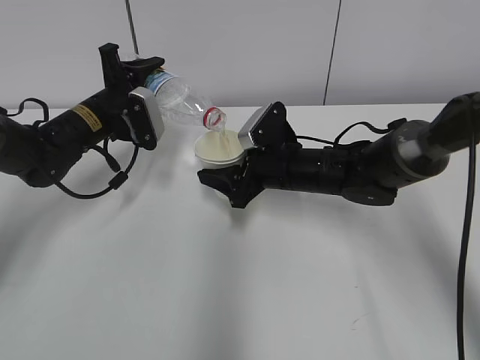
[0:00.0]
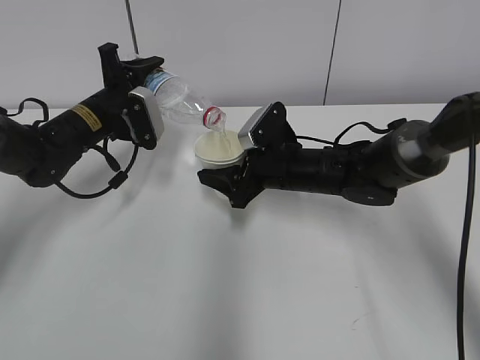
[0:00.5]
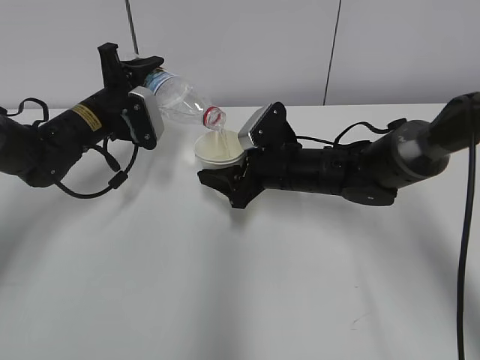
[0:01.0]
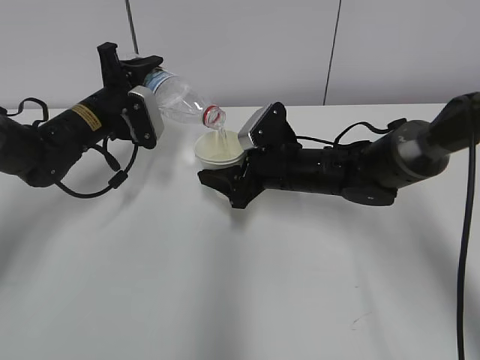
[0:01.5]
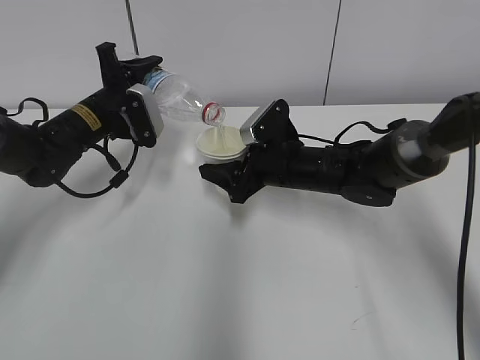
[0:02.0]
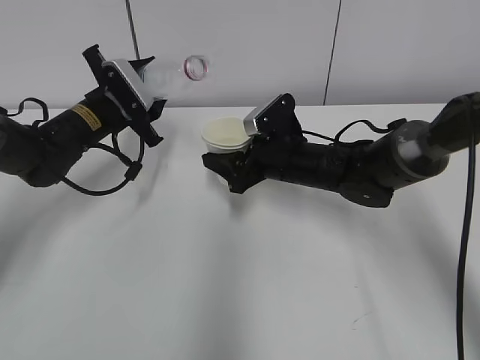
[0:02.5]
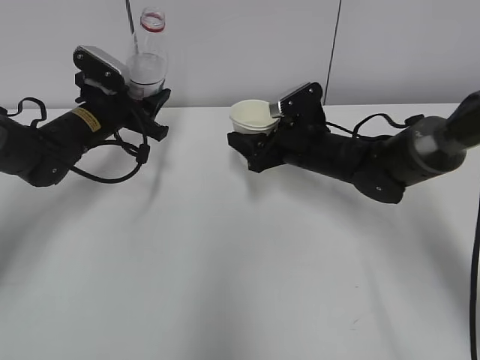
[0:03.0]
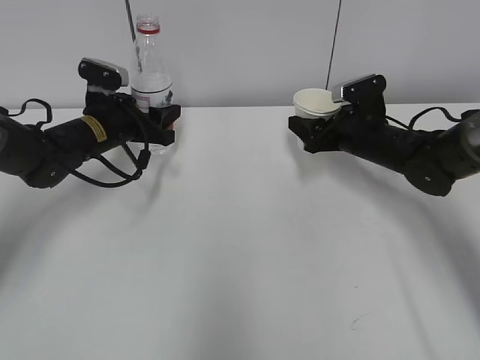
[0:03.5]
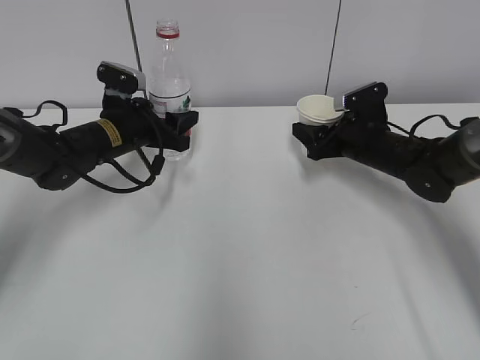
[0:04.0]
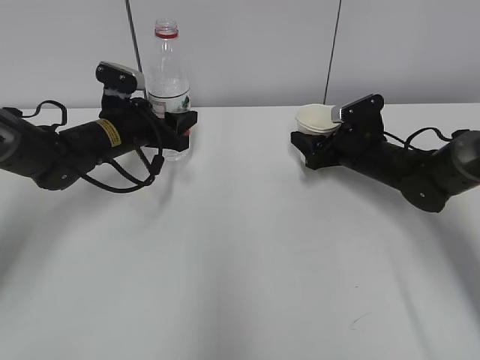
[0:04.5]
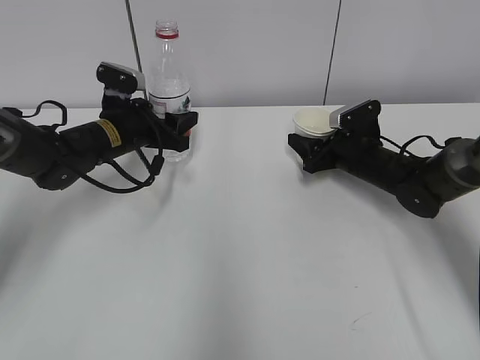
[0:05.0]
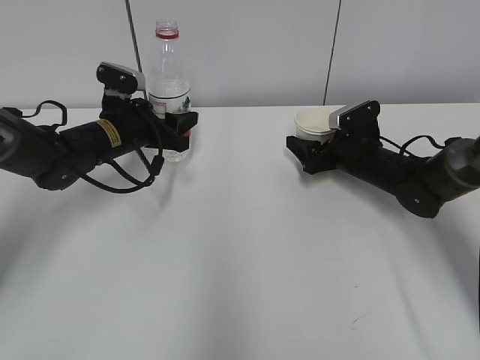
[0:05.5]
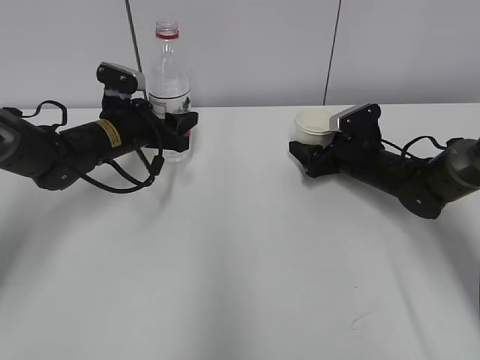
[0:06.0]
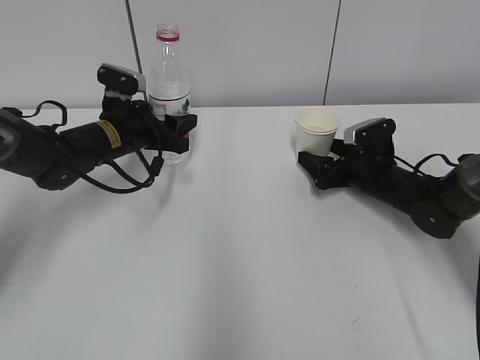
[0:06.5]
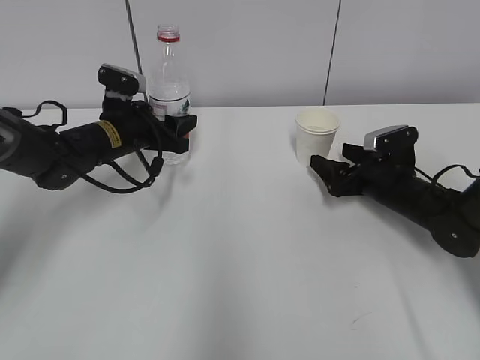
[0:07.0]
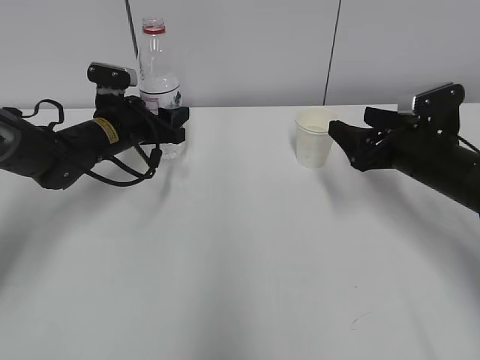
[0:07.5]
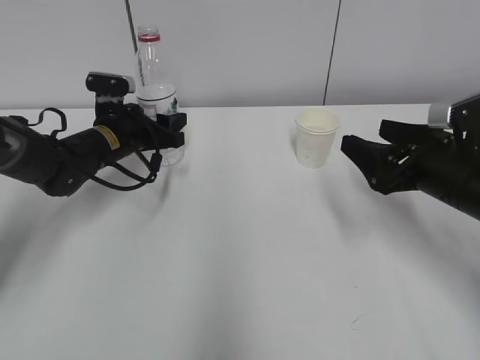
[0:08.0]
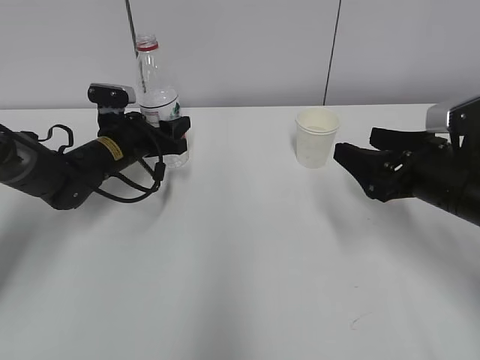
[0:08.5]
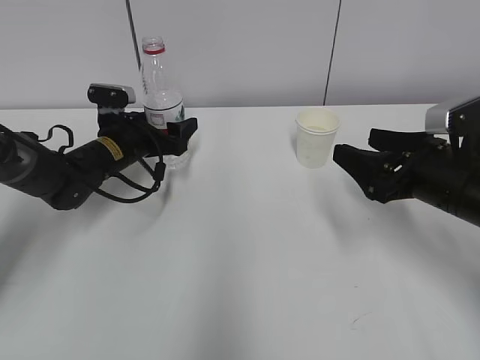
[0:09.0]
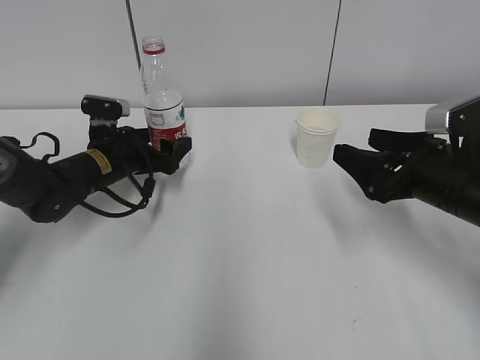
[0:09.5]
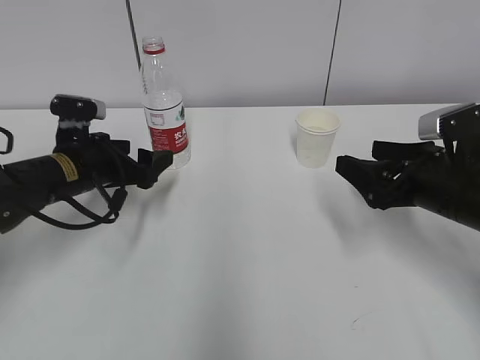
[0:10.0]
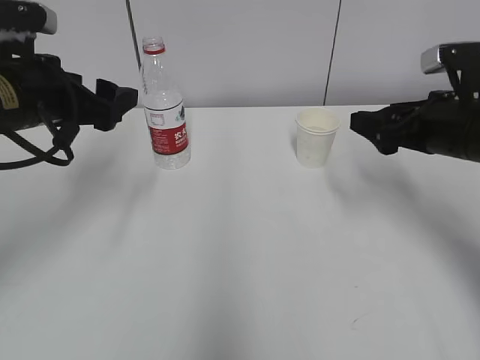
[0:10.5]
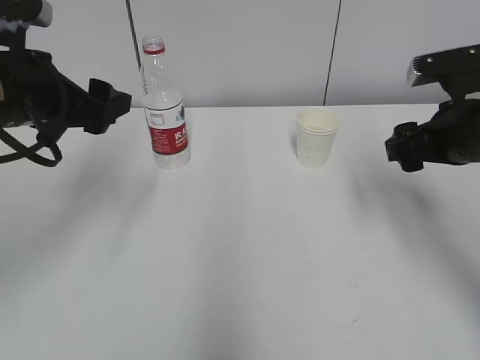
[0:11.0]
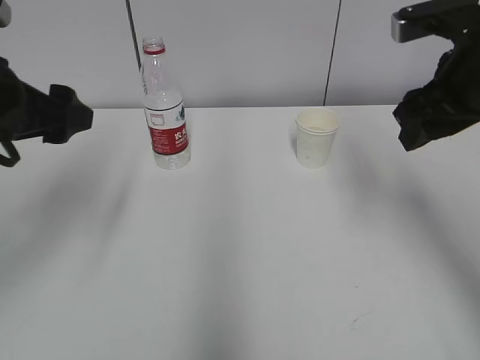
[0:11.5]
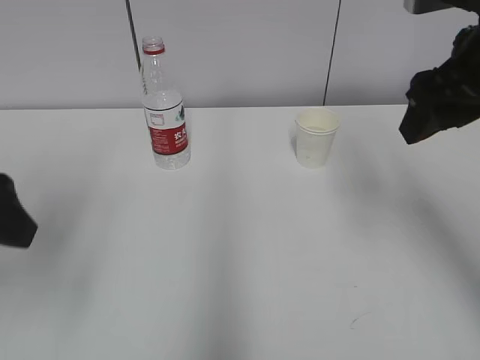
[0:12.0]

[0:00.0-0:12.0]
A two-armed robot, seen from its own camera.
Step, 0:01.5 to 0:03.5: Place the water bottle with the left hand.
0:00.0 to 0:02.0: The two grippers keep their place.
0:02.0 to 0:04.0: The right gripper is displaced to the right by some 15 cm.
0:04.0 to 0:06.0: The right gripper opens.
0:06.0 to 0:08.0: The right gripper travels backward and upward by roughly 20 cm.
0:08.0 to 0:10.0: The left gripper moves backward, about 10 cm, and opens.
0:10.0 to 0:12.0: The left gripper goes some 25 cm backward and upward; the right gripper is displaced upward by about 20 cm, and closes its fingers.

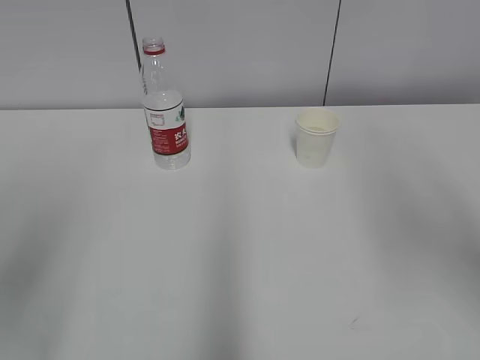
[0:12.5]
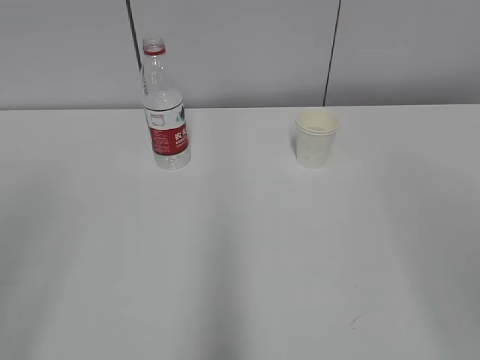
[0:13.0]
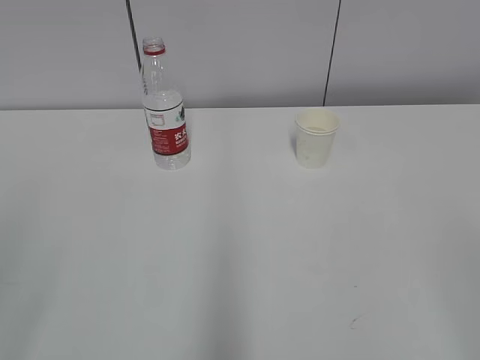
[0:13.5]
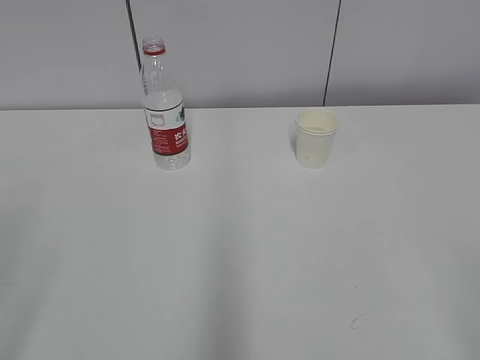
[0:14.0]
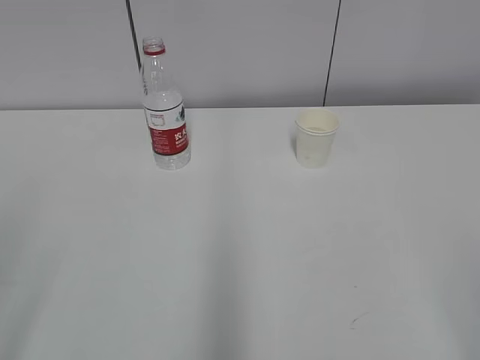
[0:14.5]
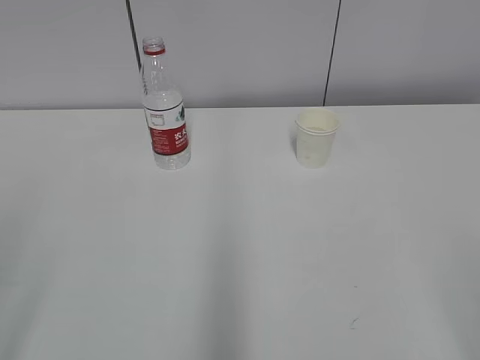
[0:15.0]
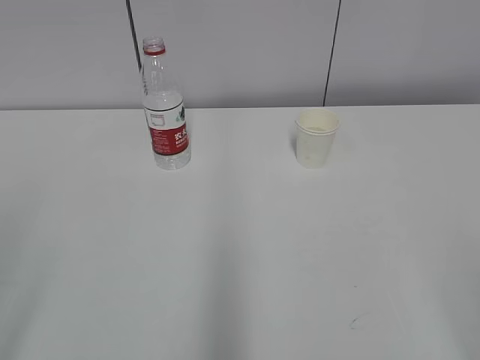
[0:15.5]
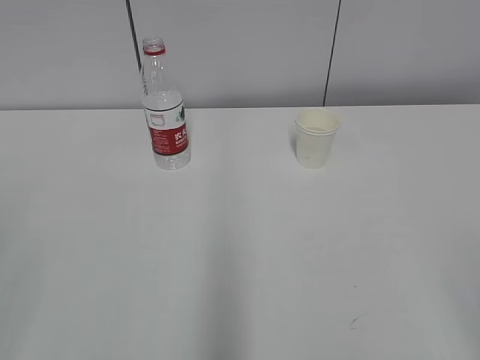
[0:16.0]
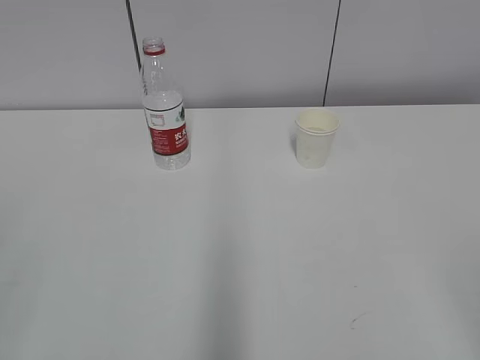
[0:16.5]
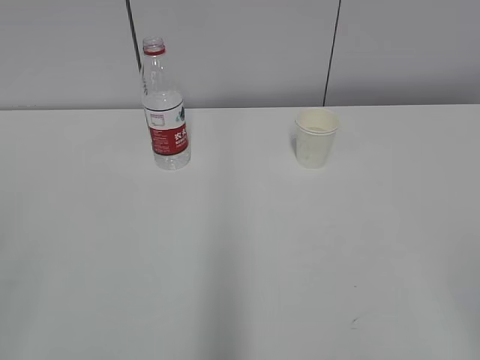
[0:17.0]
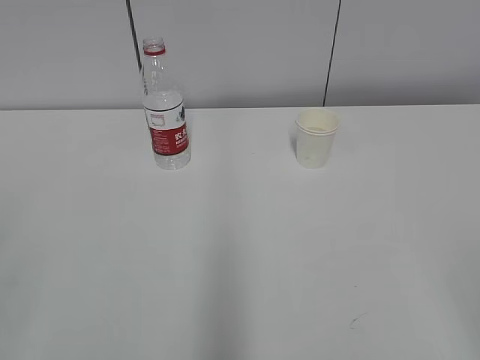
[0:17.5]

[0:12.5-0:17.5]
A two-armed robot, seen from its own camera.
0:12.5 to 0:15.0: The left gripper heads backward, covering roughly 10 cm. Meanwhile the right gripper moves backward and downward, some 25 cm, and opens its fingers.

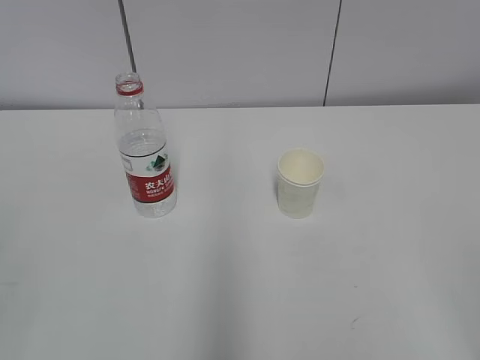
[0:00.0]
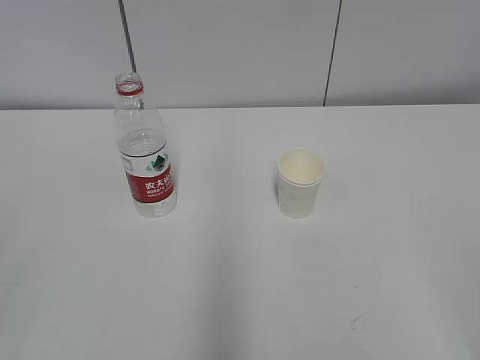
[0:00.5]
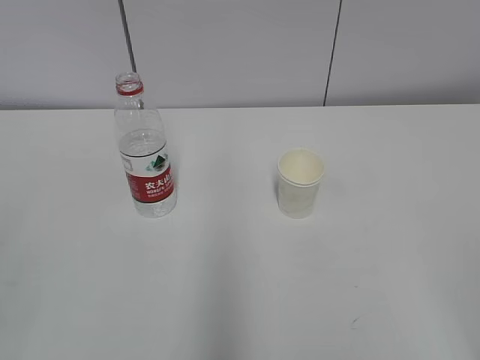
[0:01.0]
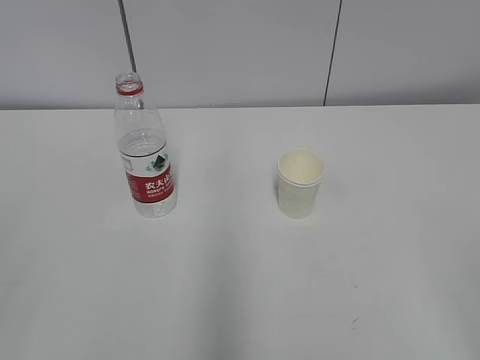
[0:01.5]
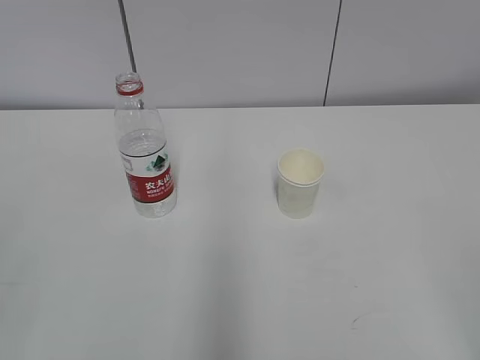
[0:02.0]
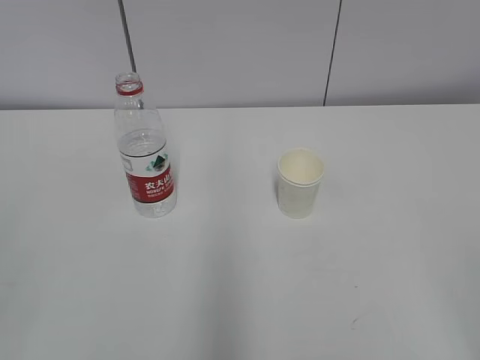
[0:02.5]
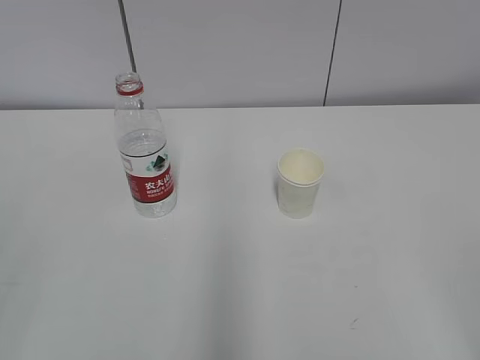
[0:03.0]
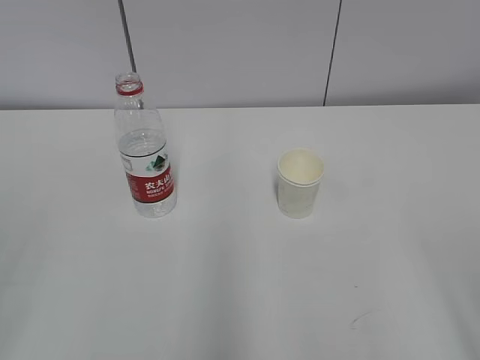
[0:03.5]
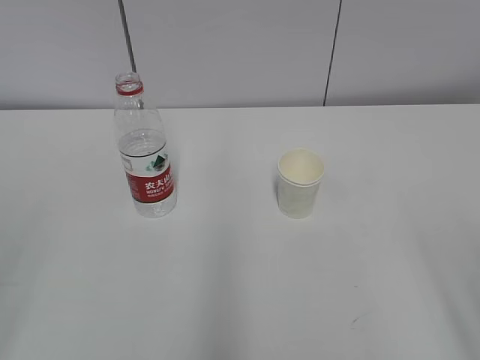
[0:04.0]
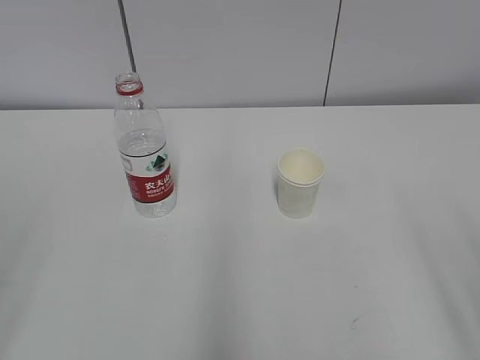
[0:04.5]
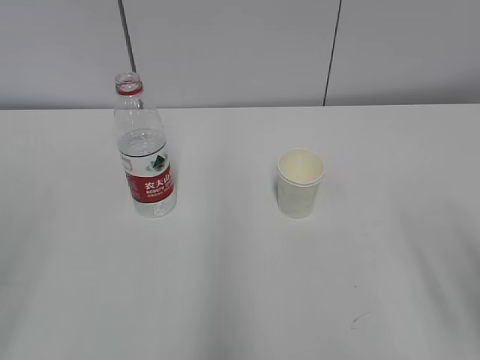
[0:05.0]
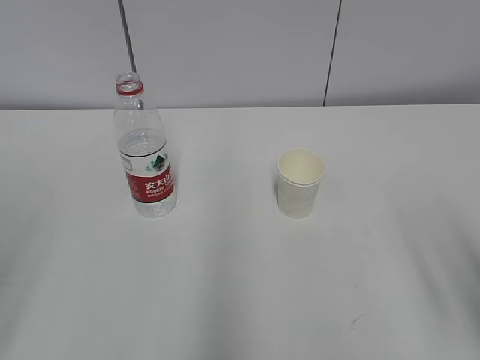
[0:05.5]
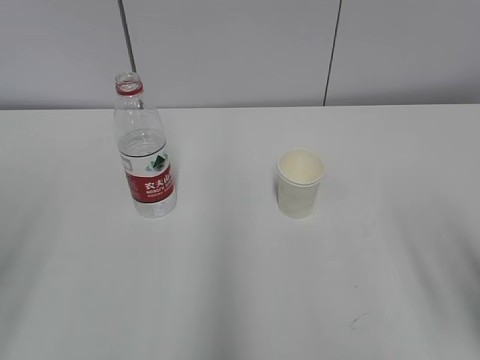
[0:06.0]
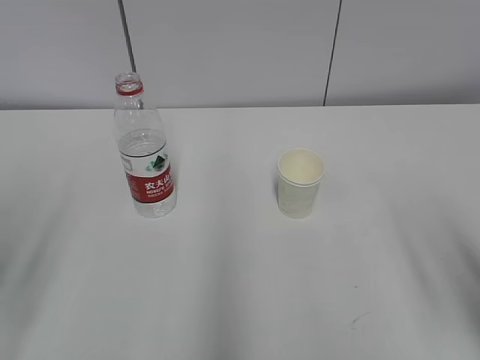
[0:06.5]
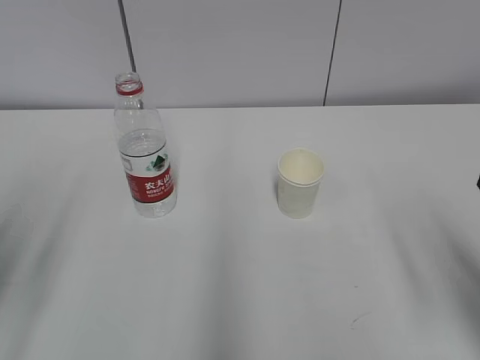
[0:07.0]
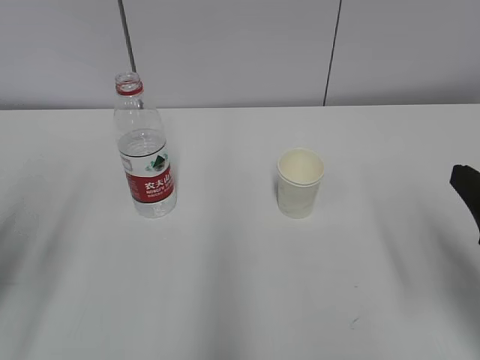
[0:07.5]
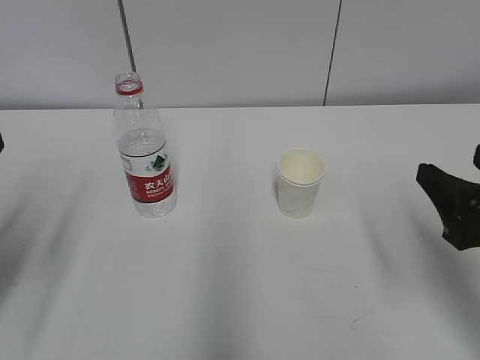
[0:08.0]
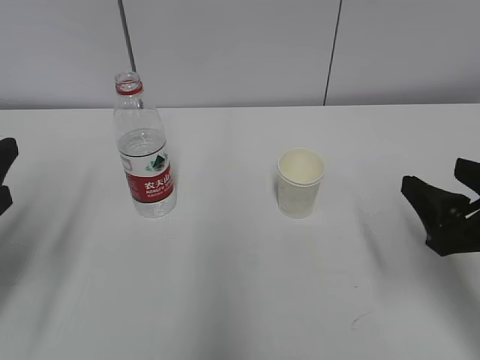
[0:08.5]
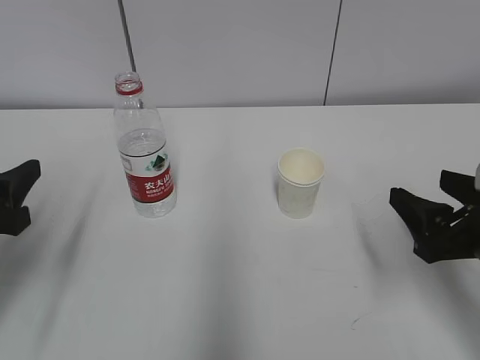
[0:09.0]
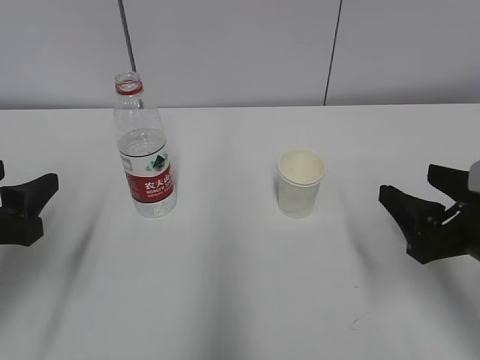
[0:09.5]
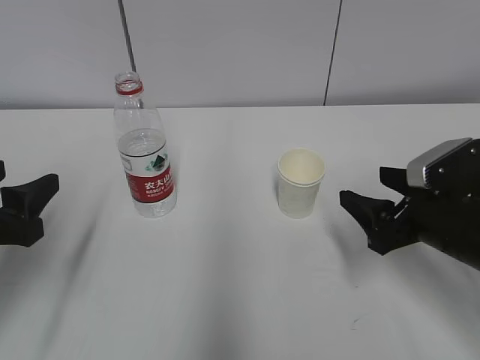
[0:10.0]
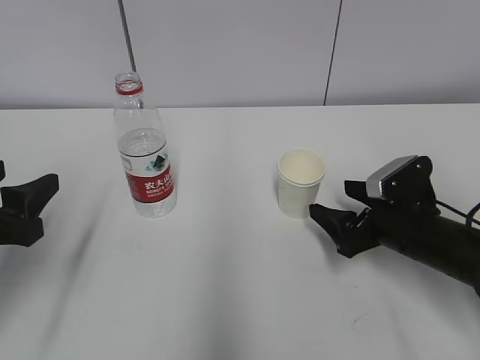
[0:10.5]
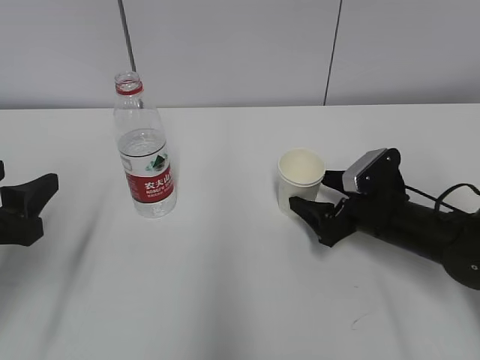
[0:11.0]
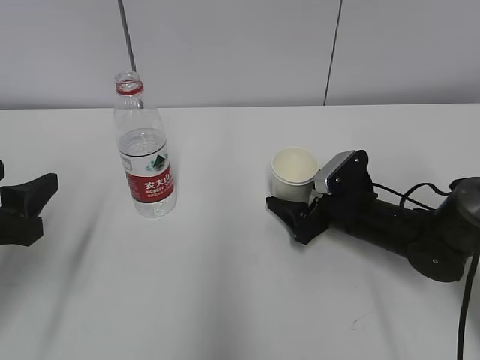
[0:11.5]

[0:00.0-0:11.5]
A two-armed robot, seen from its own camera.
Step, 0:00.0 to 0:10.0: Grab the paper cup with the right hand.
0:06.0 to 0:07.5: The right gripper shifts some 5 cm forward.
0:07.5 to 0:09.5: The right gripper heads downward and forward, covering about 10 cm, while the left gripper is displaced downward by approximately 5 cm.
0:09.5 to 0:11.5: The right gripper is displaced forward, downward and to the left by some 20 cm.
